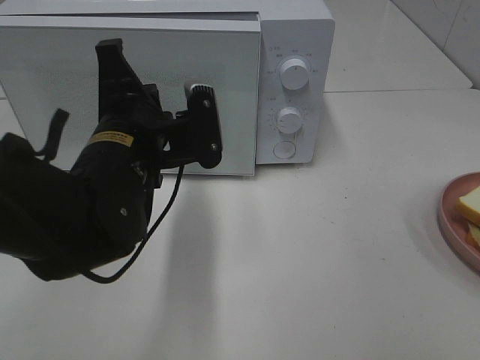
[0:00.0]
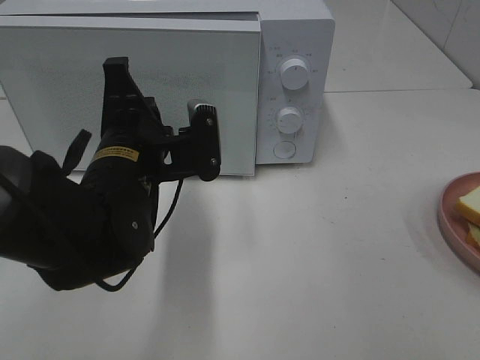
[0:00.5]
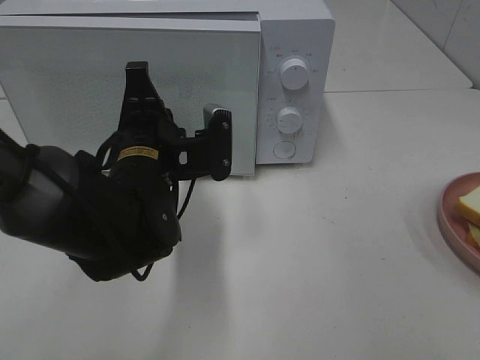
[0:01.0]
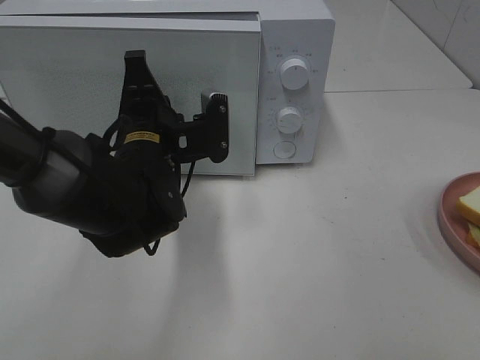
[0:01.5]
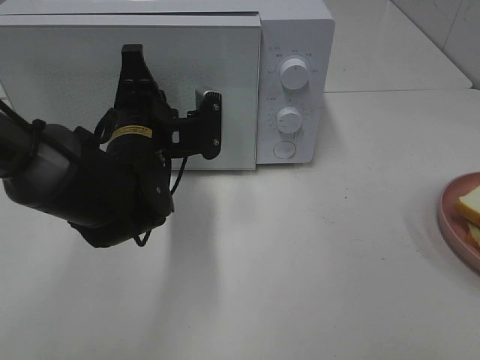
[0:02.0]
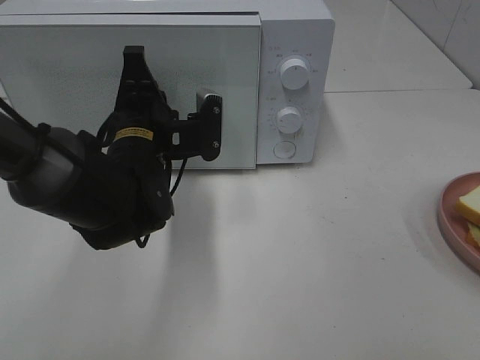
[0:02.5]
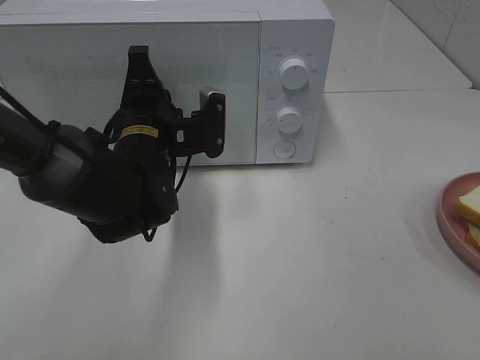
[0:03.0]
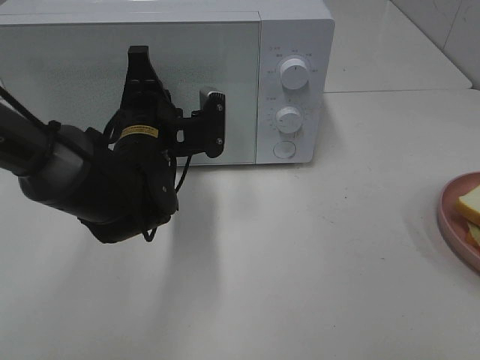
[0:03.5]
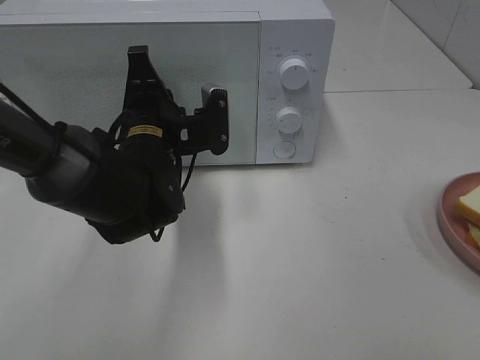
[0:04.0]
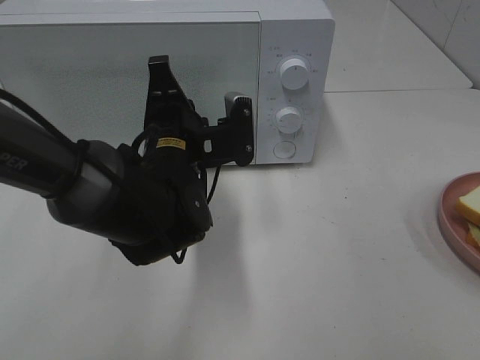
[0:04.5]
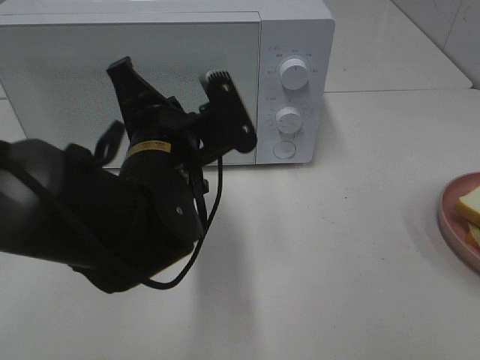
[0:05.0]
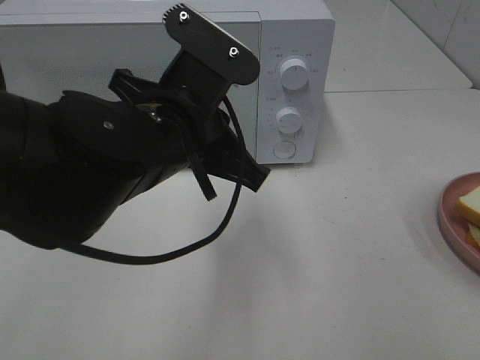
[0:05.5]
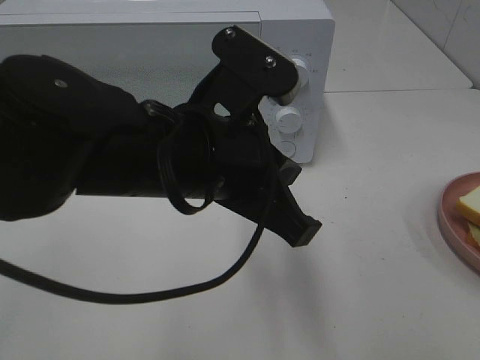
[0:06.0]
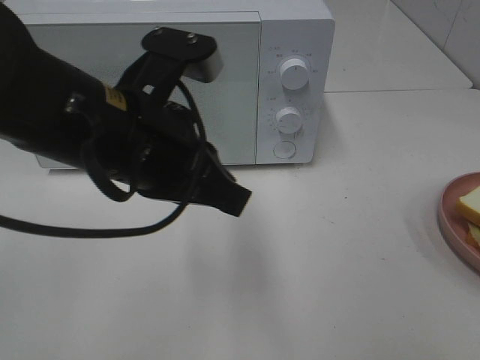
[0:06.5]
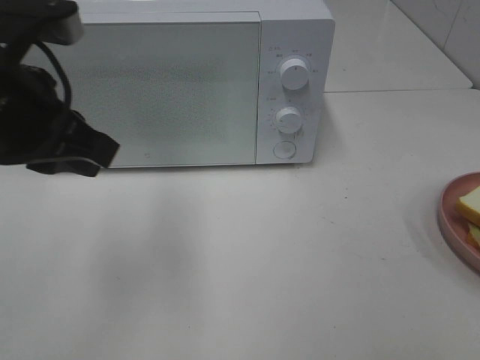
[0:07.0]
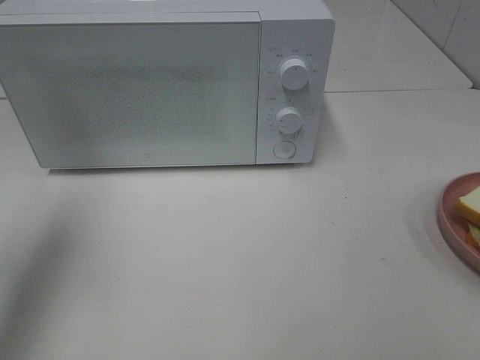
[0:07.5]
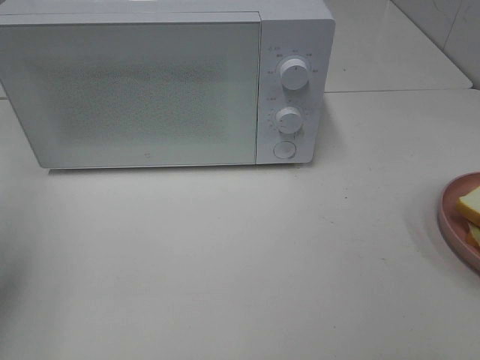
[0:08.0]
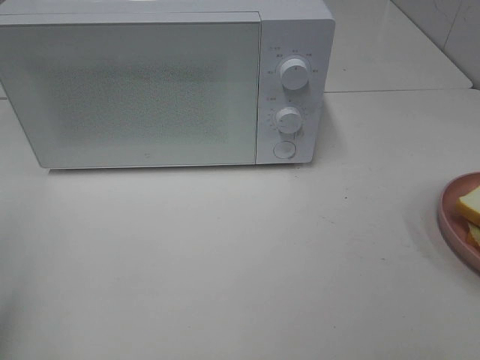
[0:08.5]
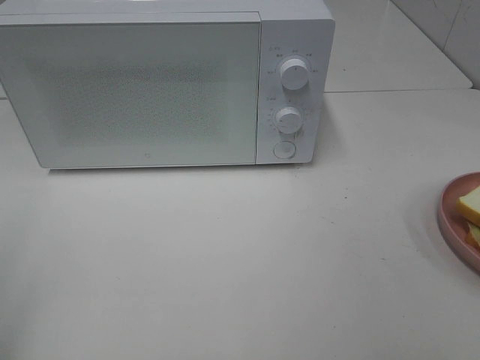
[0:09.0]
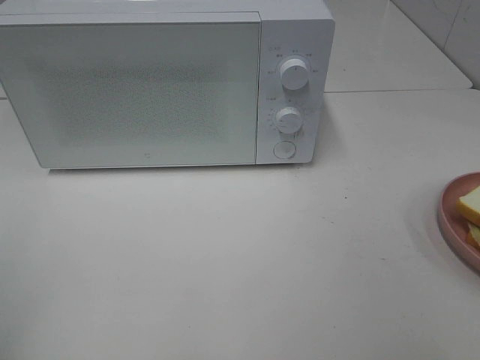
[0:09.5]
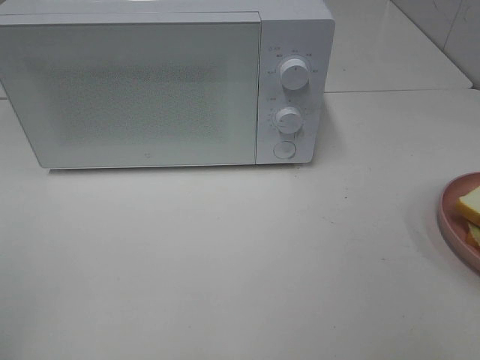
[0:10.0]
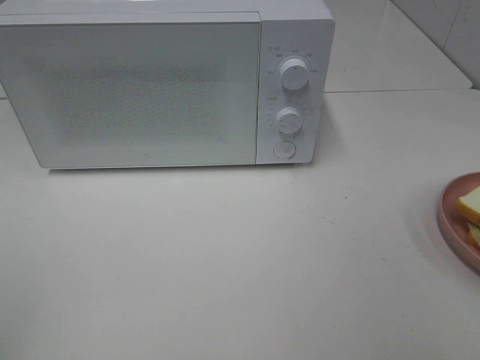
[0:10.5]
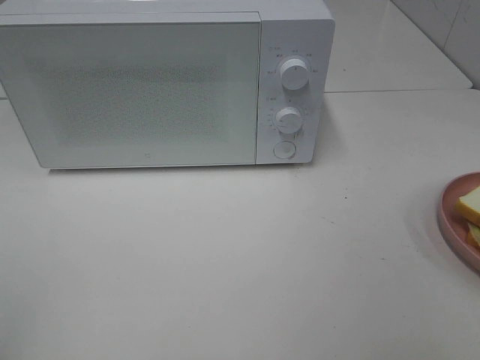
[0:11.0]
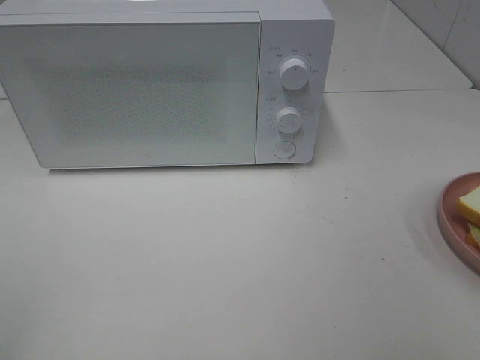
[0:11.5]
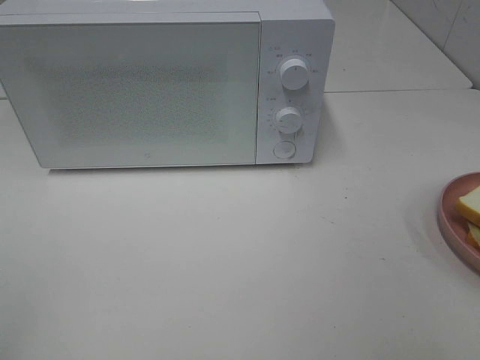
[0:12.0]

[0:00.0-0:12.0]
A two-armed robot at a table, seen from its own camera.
Task of the whole recording: Heat Sandwich.
Step, 0:00.0 to 0:05.0: Left hand: close the microwave door.
0:00.0 to 0:02.0: The left gripper shifts approximately 5 cm forward.
0:02.0 to 0:04.0: The two grippers keep their place.
0:04.0 to 0:06.0: The left gripper moves backward, upward and to the right, about 15 cm.
0:06.0 to 0:08.0: The left gripper shifts roughly 35 cm to the left, and opens.
0:08.0 to 0:10.0: The left gripper travels backward by about 20 cm.

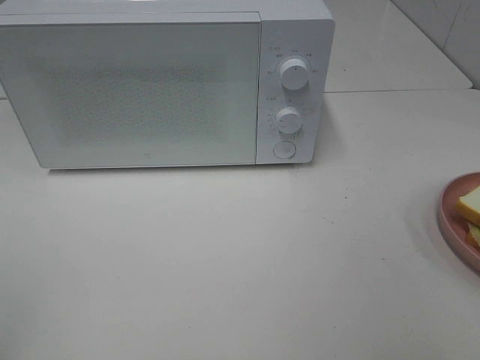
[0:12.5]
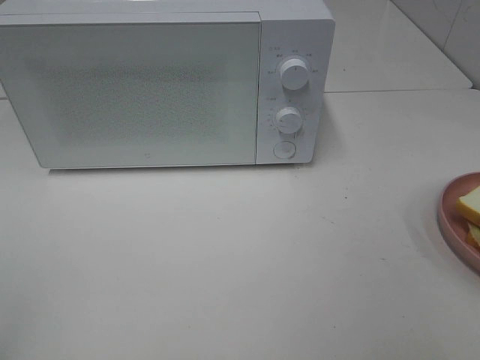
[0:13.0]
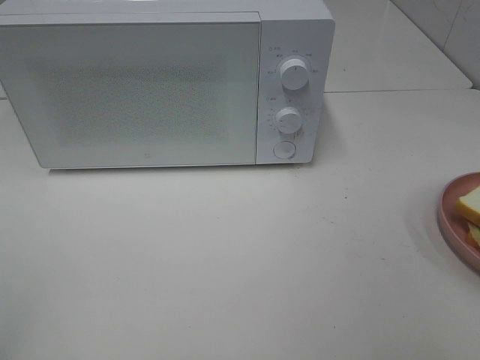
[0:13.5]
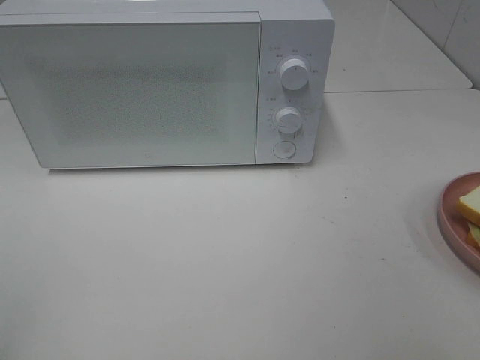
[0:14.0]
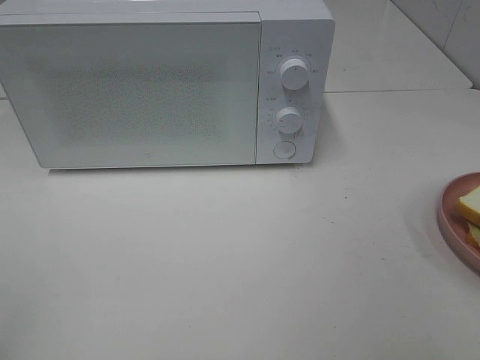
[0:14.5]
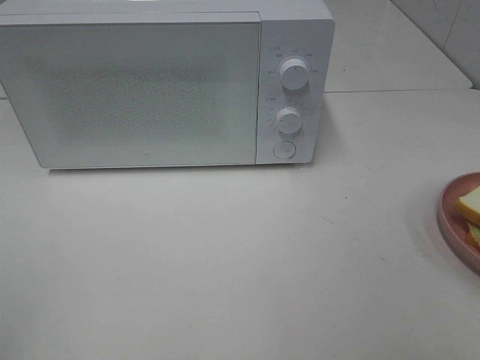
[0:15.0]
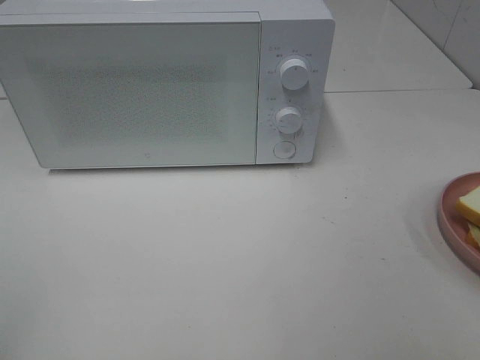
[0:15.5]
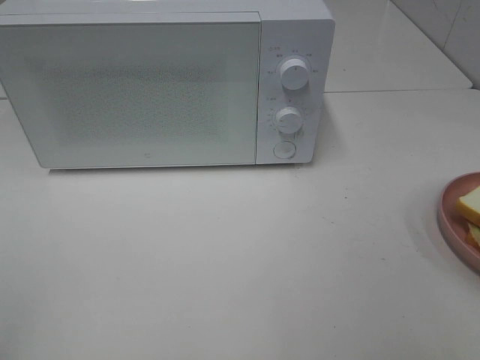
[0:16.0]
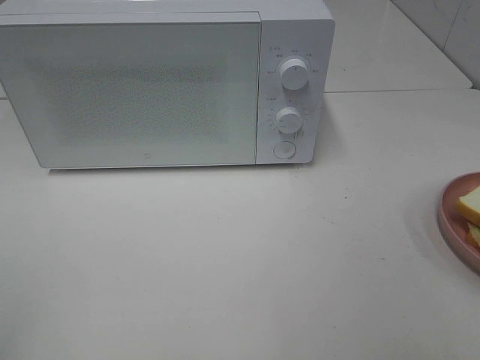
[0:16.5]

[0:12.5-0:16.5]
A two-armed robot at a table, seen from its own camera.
Task of the whole recording: Heat Sandwich.
0:12.5 to 0:16.5: The two grippers keep their place.
